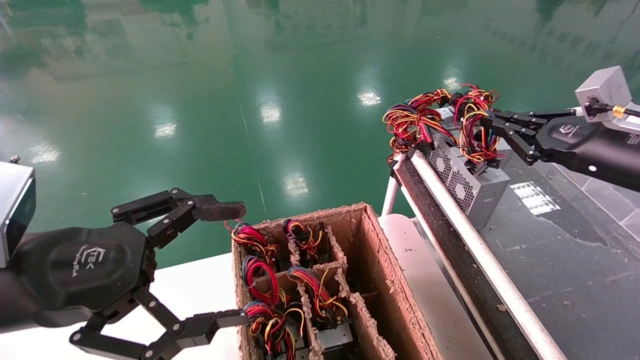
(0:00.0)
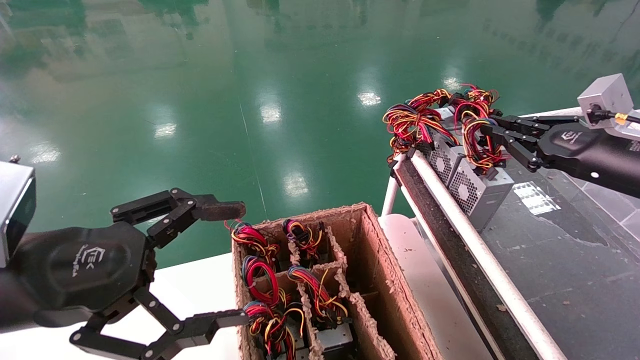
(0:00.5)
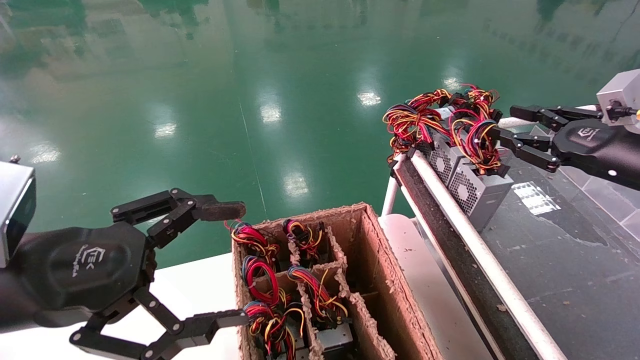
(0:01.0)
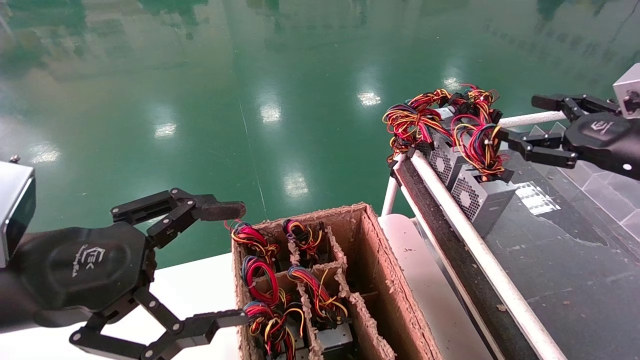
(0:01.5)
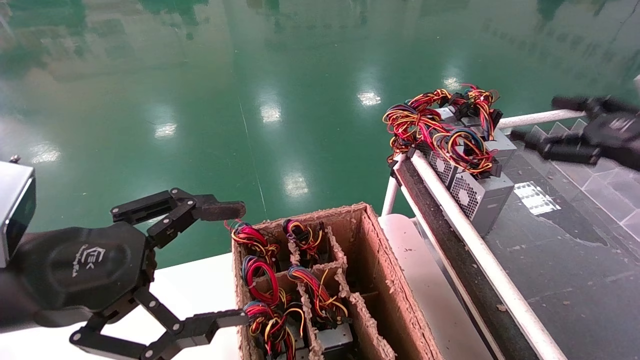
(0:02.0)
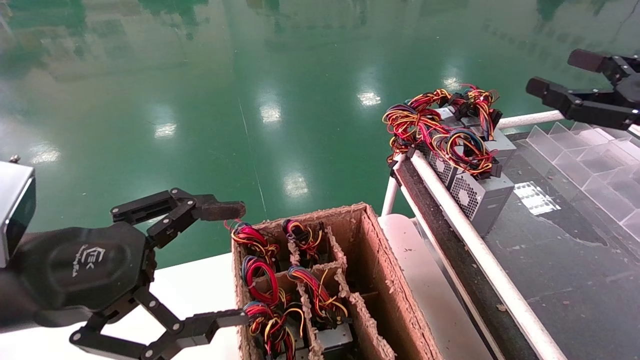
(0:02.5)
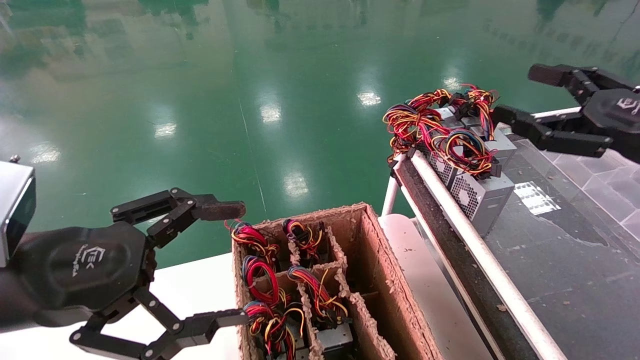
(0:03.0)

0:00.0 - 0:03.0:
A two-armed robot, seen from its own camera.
0:00.0 - 0:01.5: The right gripper opens.
0:01.5 - 0:03.0: The right gripper travels backward by about 5 cm.
